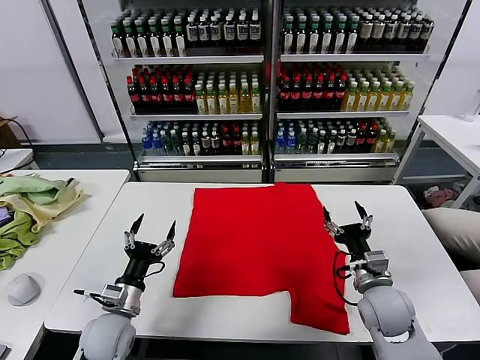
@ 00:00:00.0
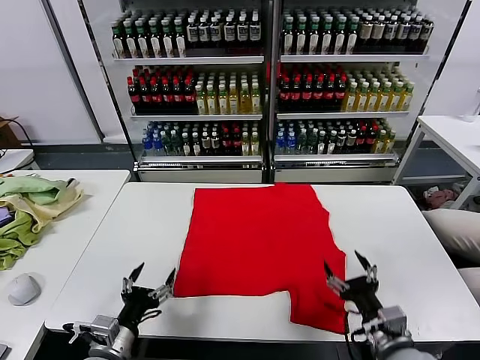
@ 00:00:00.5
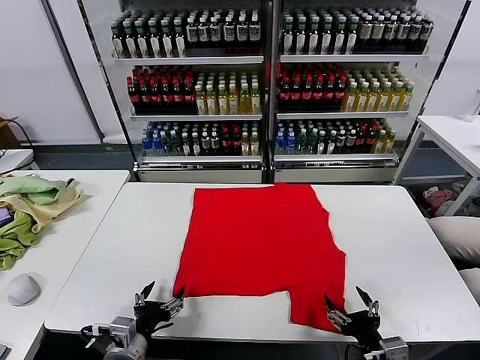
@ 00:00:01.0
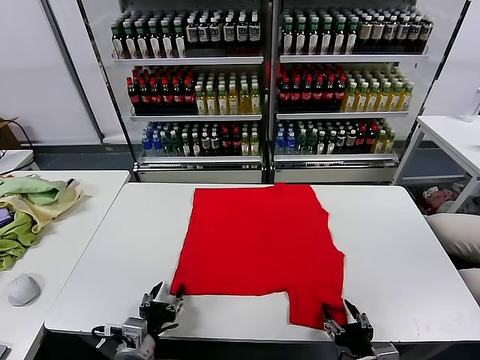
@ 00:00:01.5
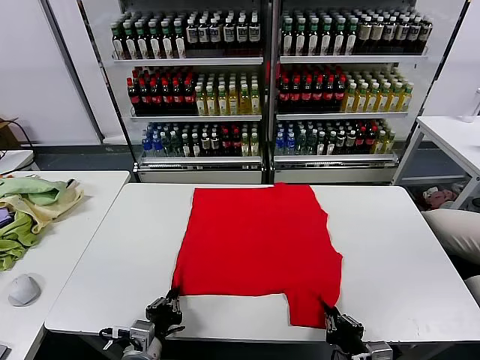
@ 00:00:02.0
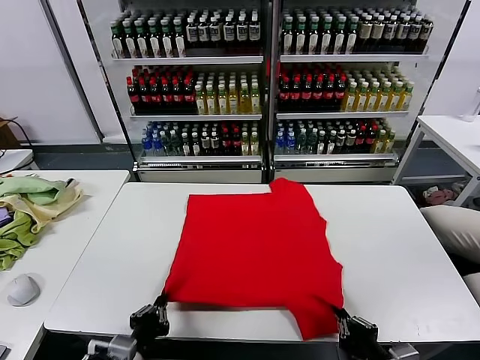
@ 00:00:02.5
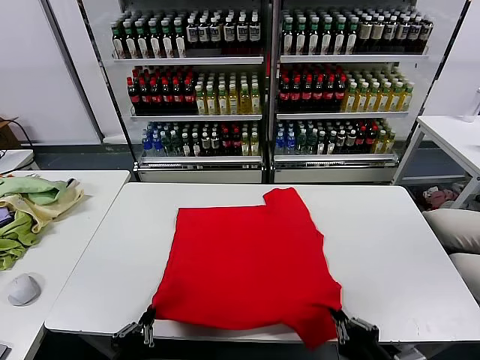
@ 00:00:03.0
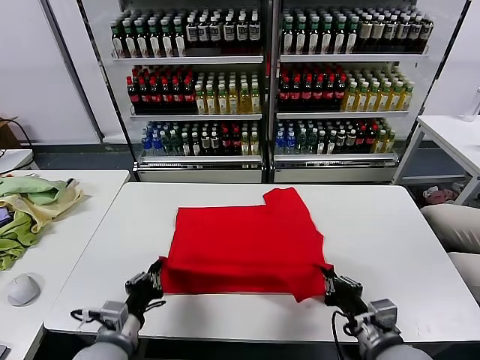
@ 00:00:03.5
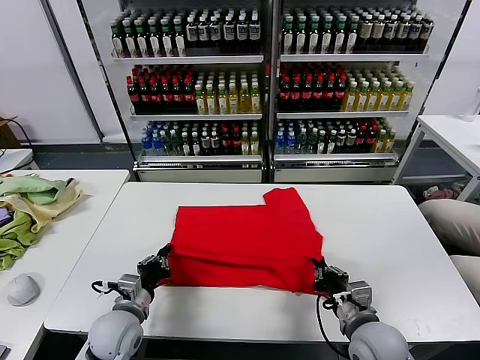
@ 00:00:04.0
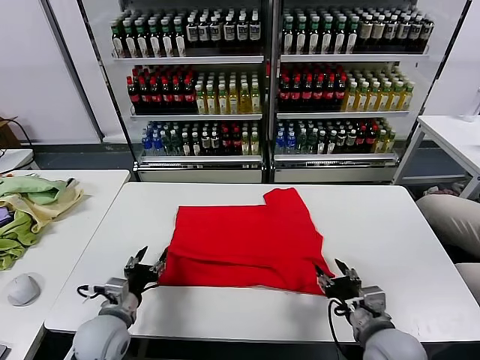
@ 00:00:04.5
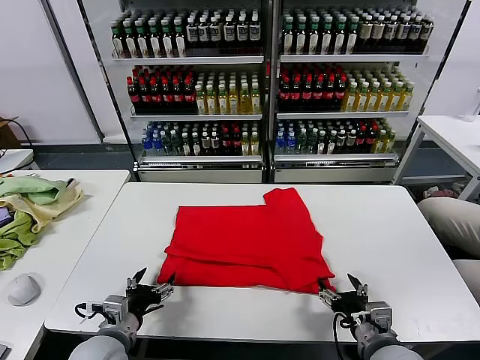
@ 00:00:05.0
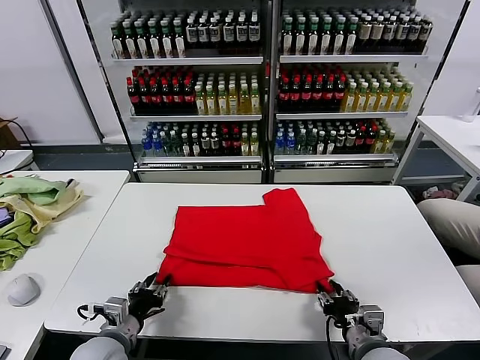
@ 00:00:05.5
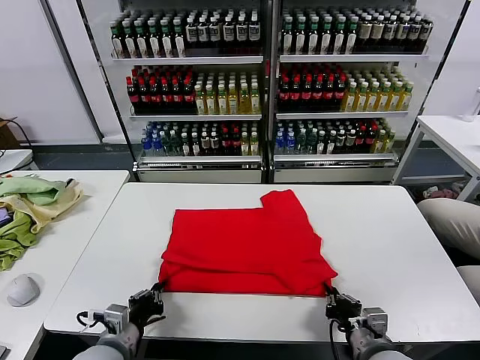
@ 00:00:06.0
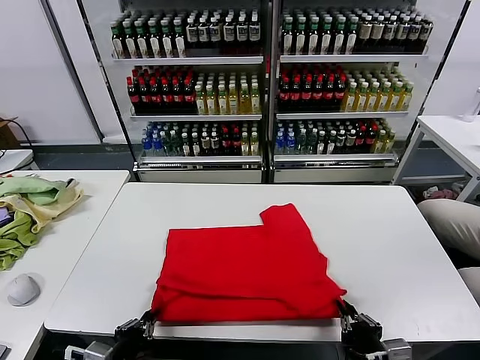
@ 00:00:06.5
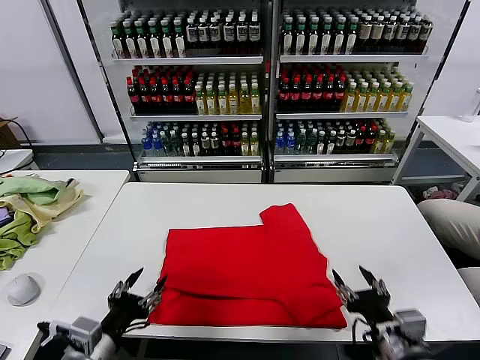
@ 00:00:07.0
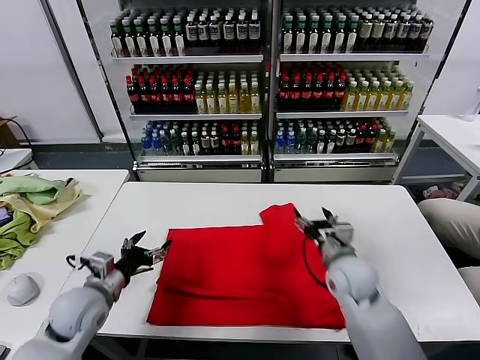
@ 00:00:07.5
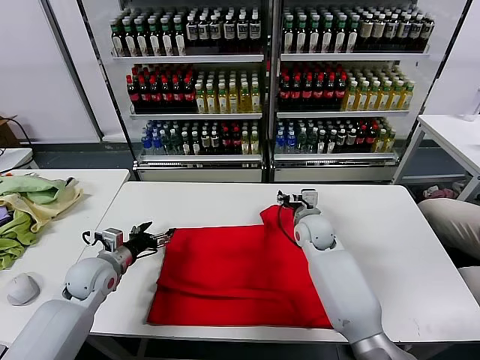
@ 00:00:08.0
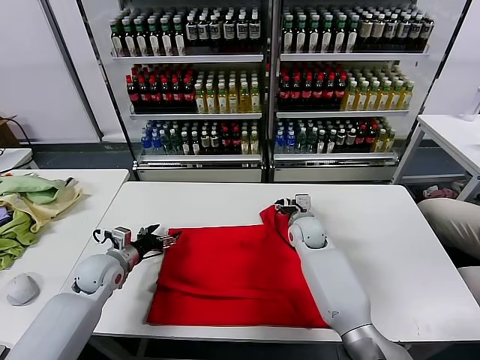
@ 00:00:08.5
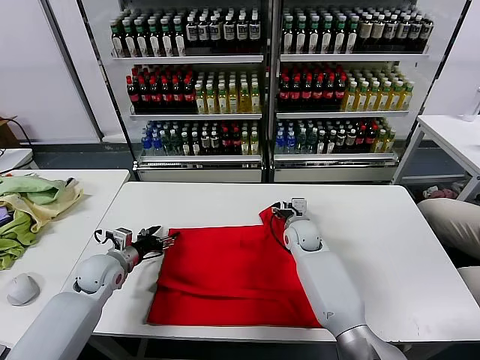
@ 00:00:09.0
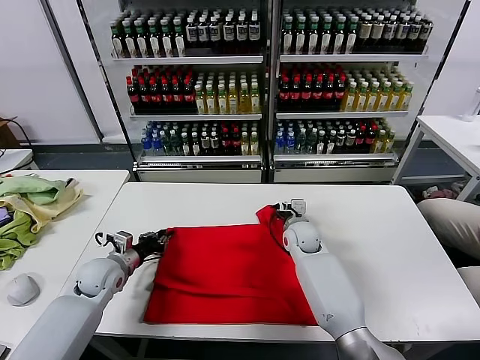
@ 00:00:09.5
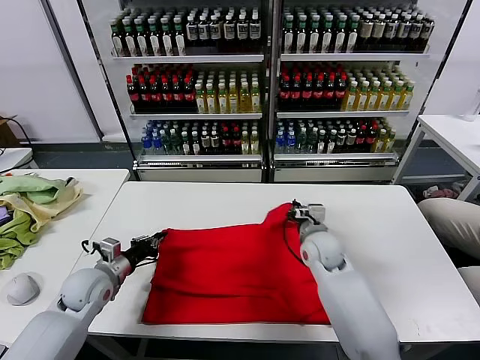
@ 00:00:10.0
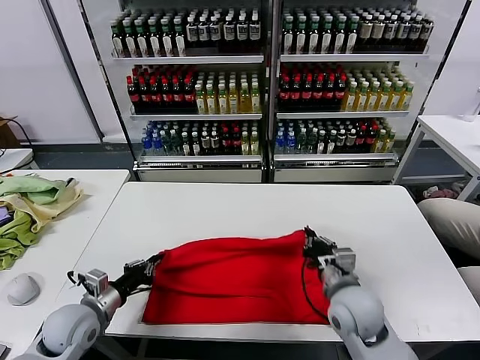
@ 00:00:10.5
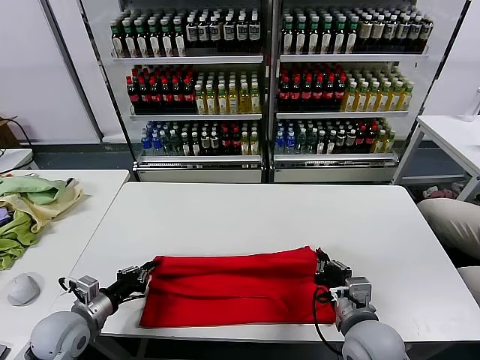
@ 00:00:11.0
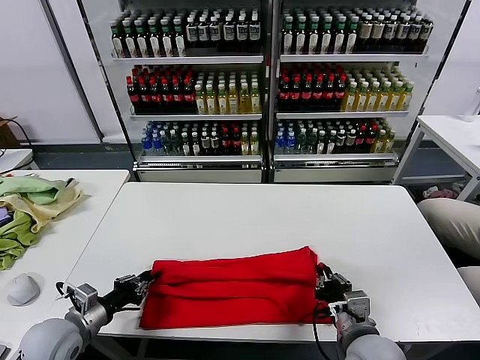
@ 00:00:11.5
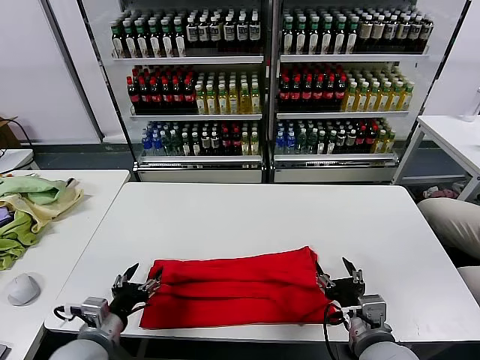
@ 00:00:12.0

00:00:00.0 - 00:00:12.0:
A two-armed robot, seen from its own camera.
Task of the whole recording: fold and organize the clothes.
Step, 00:00:00.0 - 00:00:02.0: use both grippers simultaneously to clamp the lower edge of the clothing fabric.
Step, 00:00:02.5 - 00:00:04.0: use both grippers to drag the lower edge of the fabric forward and fold it over the upper edge.
Step, 00:00:04.5 - 00:00:06.5: Drag the clothes downward with both gripper.
Step, 00:00:07.0 - 00:00:09.5: use both grippers simultaneously to clamp the upper edge of the clothing fabric.
Step, 00:00:10.0 - 00:00:11.5: use both grippers to drag the upper edge of the fabric backward and fold it over the lower edge.
00:00:02.0 - 00:00:04.0: Both grippers travel together forward, roughly 10 cm.
00:00:04.0 - 00:00:06.0: Both grippers move backward, some 5 cm. The right gripper opens, then closes again, while the left gripper opens, then closes once more.
00:00:06.0 - 00:00:08.0: The left gripper heads forward and to the left, covering roughly 20 cm, and opens up. Meanwhile the right gripper goes about 35 cm forward, and opens up.
00:00:08.0 - 00:00:10.0: The left gripper closes. The right gripper heads backward, covering roughly 10 cm, and closes up.
00:00:10.0 - 00:00:12.0: The two grippers go some 20 cm backward. The left gripper opens its fingers. Meanwhile the right gripper opens up.

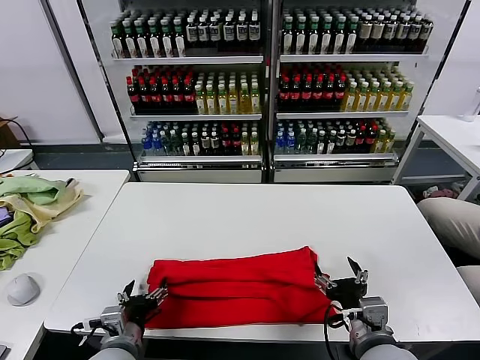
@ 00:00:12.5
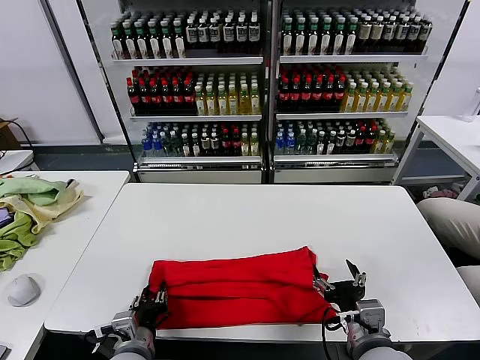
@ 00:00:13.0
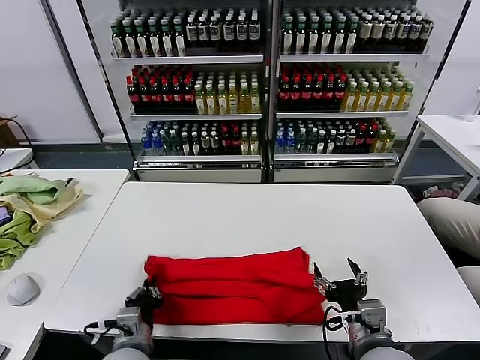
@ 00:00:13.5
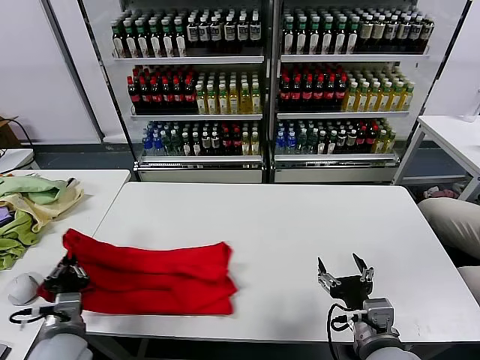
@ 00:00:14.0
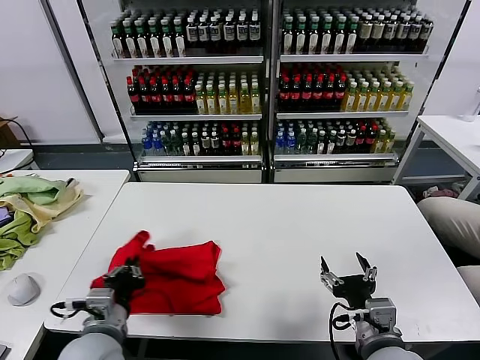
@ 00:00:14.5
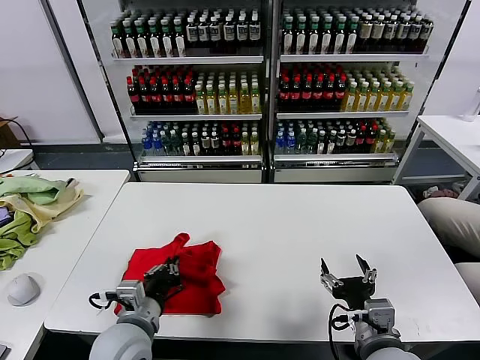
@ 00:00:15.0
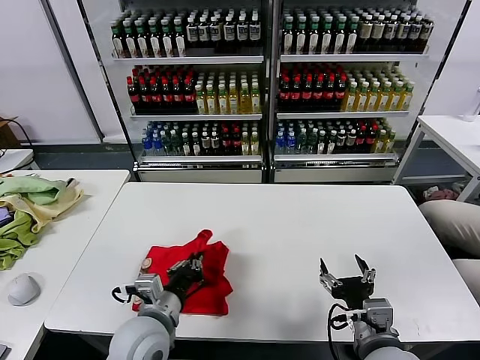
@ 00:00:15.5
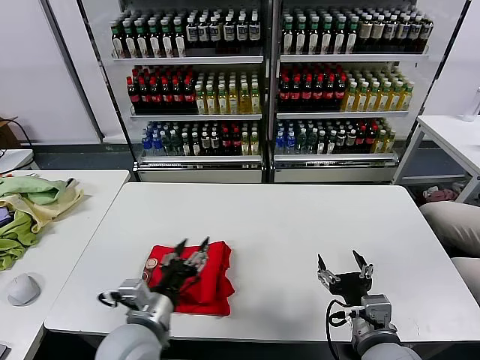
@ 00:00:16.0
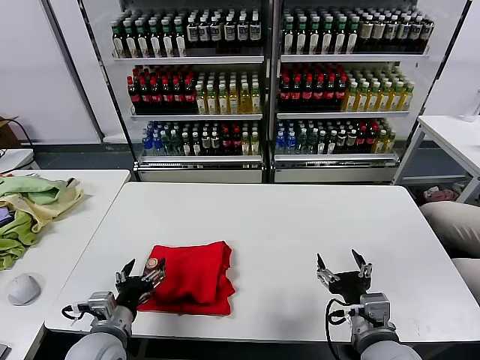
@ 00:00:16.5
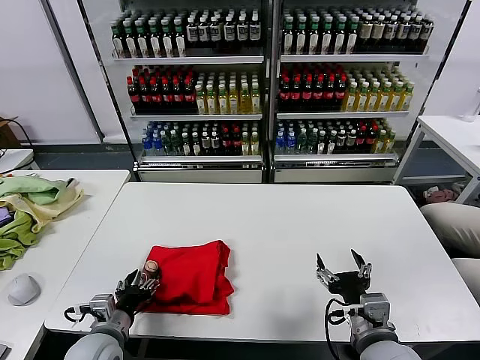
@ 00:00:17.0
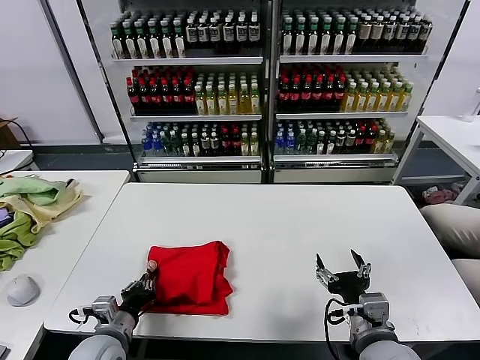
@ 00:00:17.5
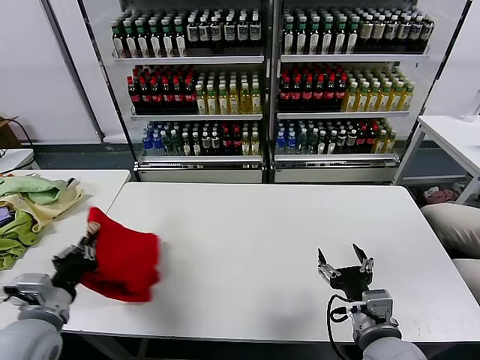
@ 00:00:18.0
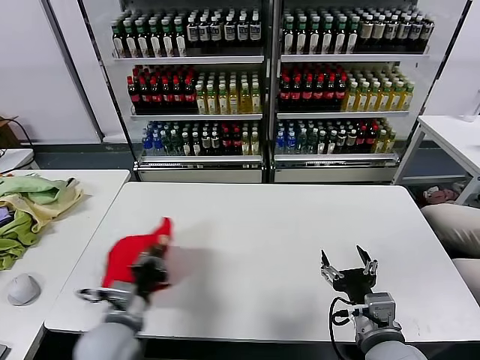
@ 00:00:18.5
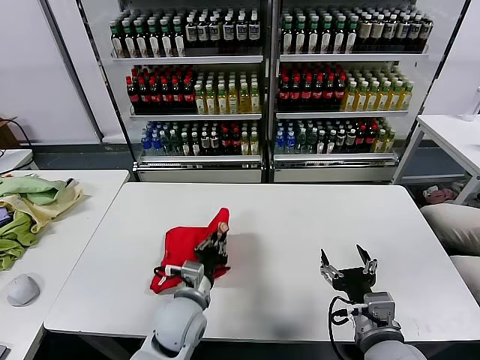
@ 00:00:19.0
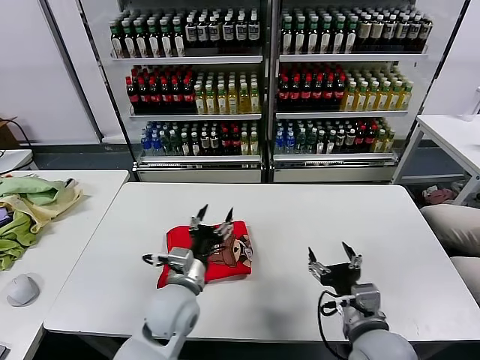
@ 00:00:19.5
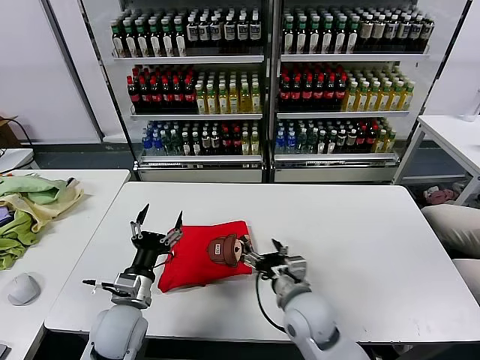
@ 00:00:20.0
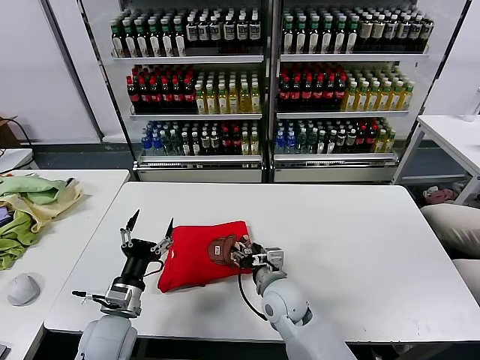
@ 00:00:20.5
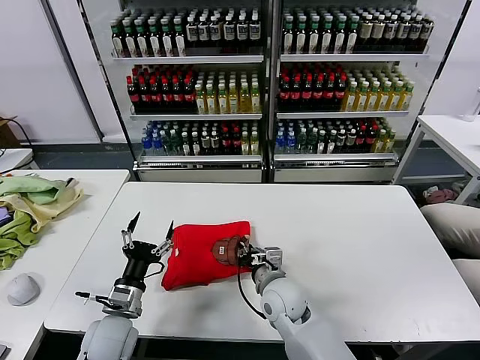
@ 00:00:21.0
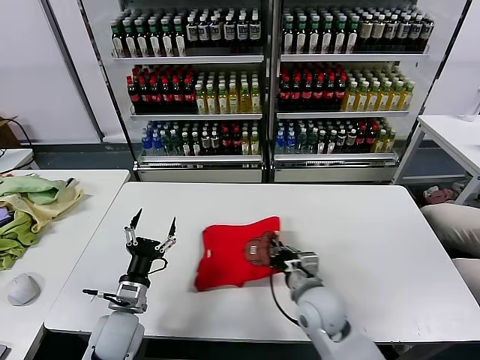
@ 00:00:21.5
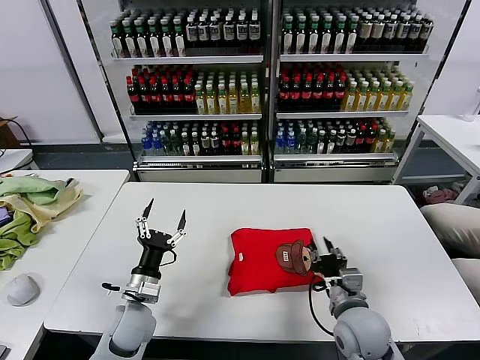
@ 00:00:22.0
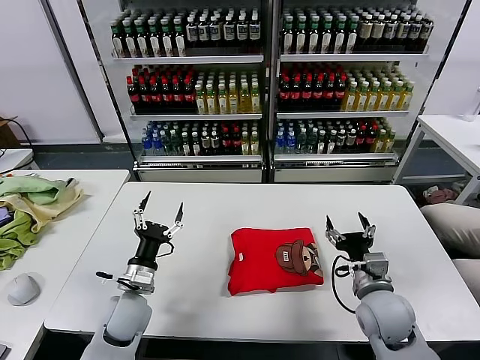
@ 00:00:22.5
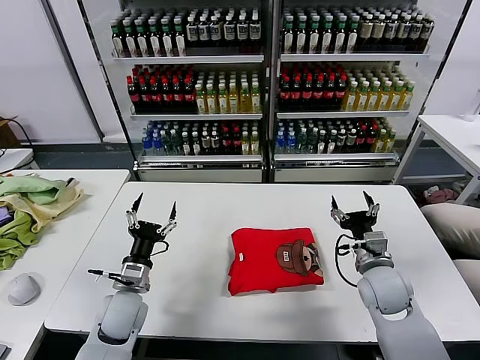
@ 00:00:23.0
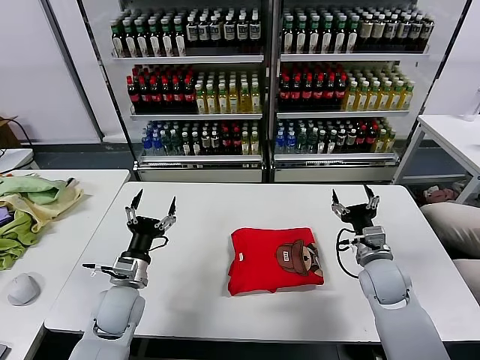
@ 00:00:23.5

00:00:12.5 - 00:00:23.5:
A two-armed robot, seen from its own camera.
Task of the whole recording: fold and organize the clothes.
Step, 00:00:13.5 - 00:00:15.5: use the left gripper to drag the left edge of the fabric to the left and folds it over the right edge.
Step, 00:00:16.0 - 00:00:19.0: Flip the folded clothes over with left gripper.
Step, 00:00:19.5 - 00:00:22.0: Drag the clothes to the center of the table.
00:00:12.5 - 00:00:14.5: The left gripper travels upward by some 5 cm, travels to the left and back again, about 10 cm each way, and closes up.
00:00:14.5 - 00:00:16.0: The left gripper heads to the right, covering about 10 cm, and opens up.
00:00:16.0 - 00:00:18.0: The left gripper shifts some 15 cm to the left, and closes up.
00:00:18.0 - 00:00:20.0: The left gripper moves to the right, downward and forward, roughly 15 cm, and opens. The right gripper shifts some 15 cm to the left and forward.
00:00:20.0 - 00:00:21.5: The right gripper closes up.
00:00:21.5 - 00:00:23.5: The left gripper ends up some 5 cm from where it was; the right gripper shifts roughly 15 cm to the right, and opens.
